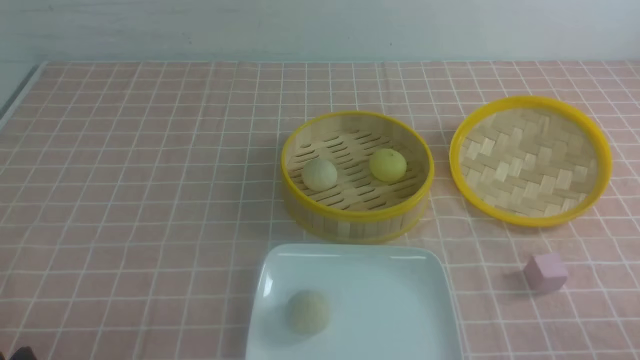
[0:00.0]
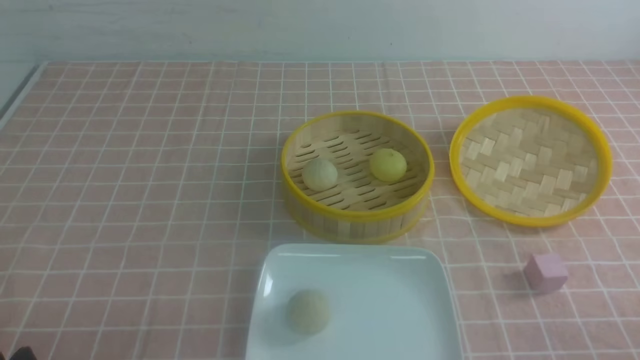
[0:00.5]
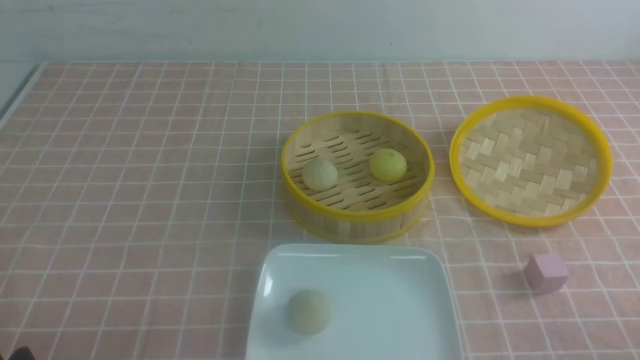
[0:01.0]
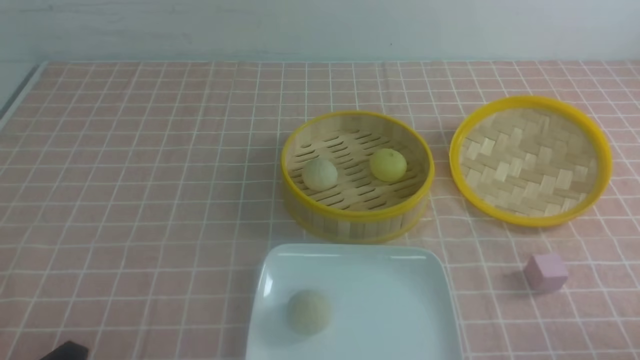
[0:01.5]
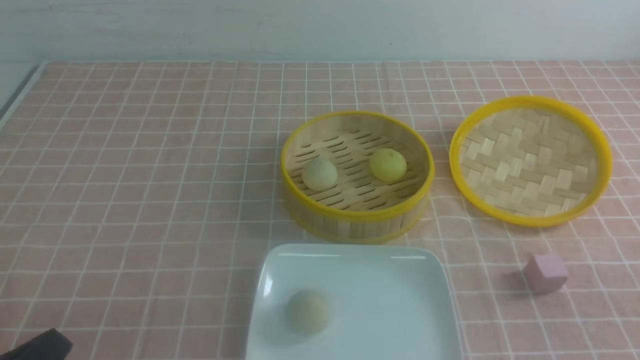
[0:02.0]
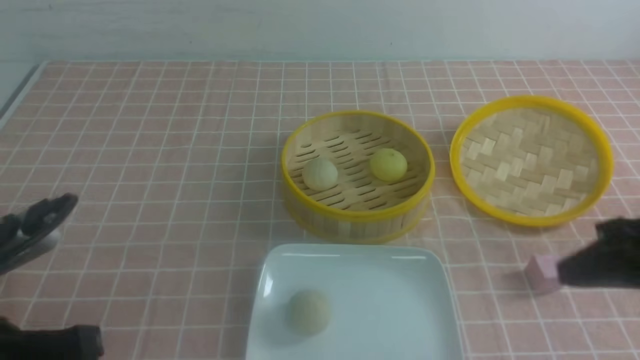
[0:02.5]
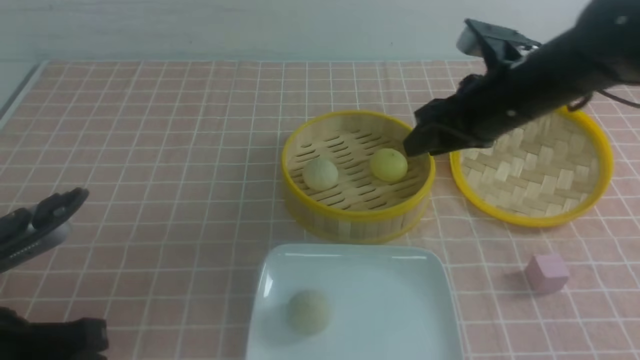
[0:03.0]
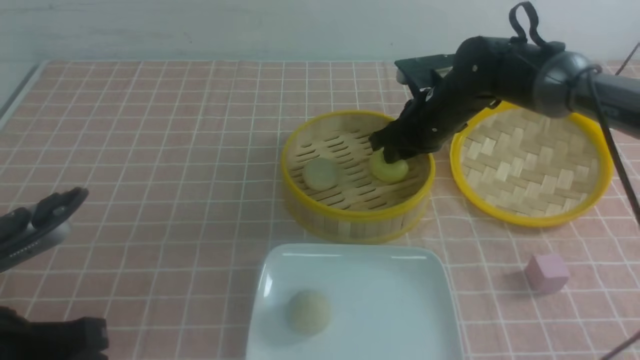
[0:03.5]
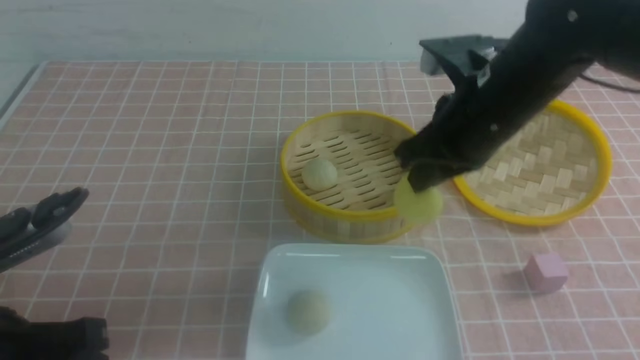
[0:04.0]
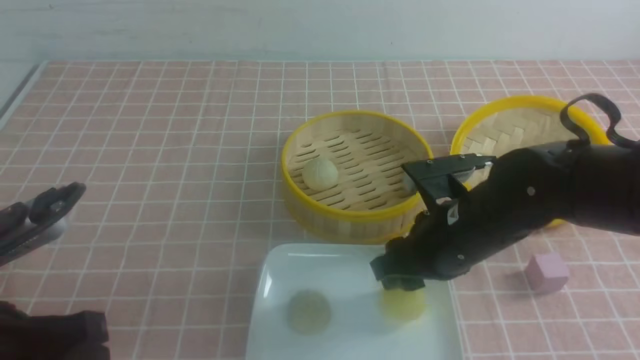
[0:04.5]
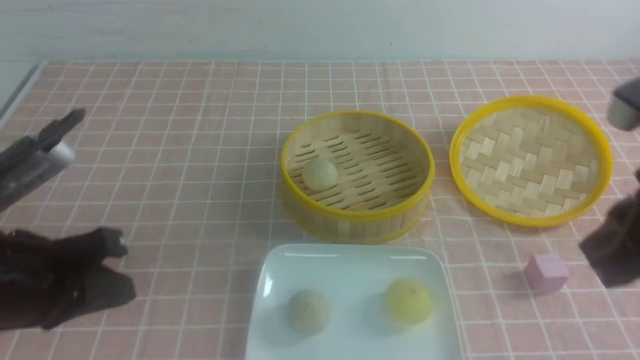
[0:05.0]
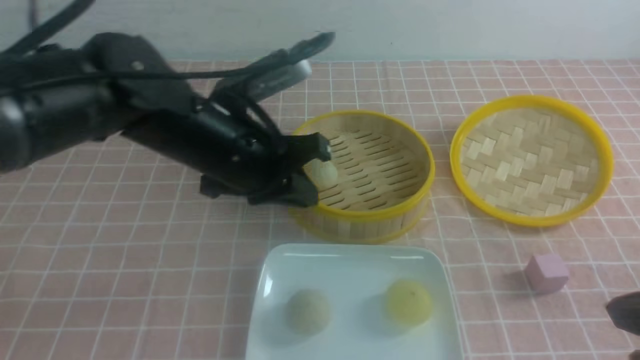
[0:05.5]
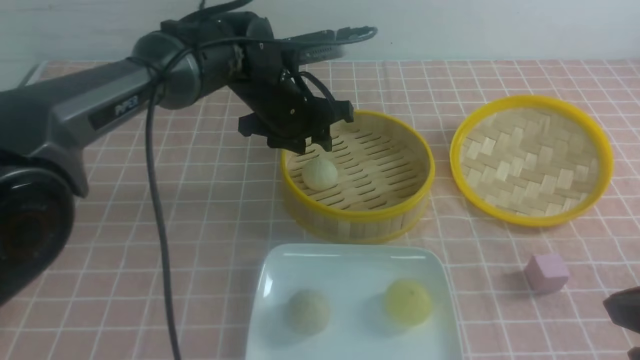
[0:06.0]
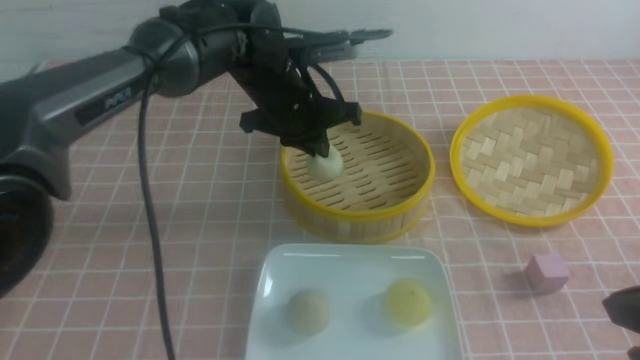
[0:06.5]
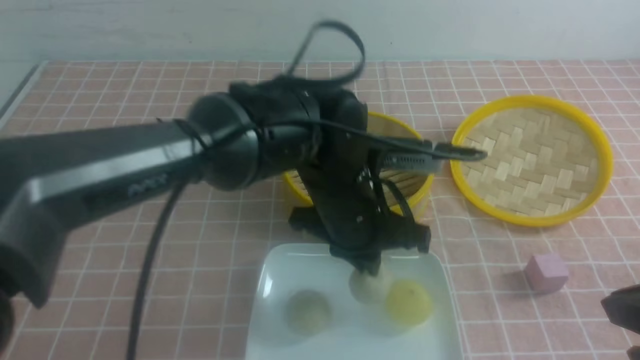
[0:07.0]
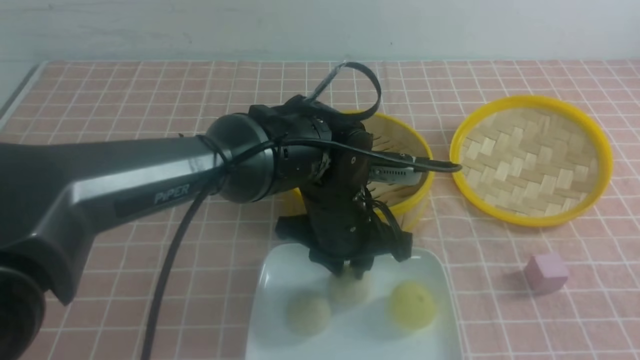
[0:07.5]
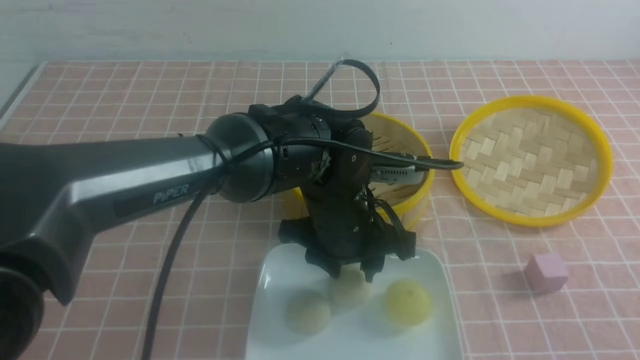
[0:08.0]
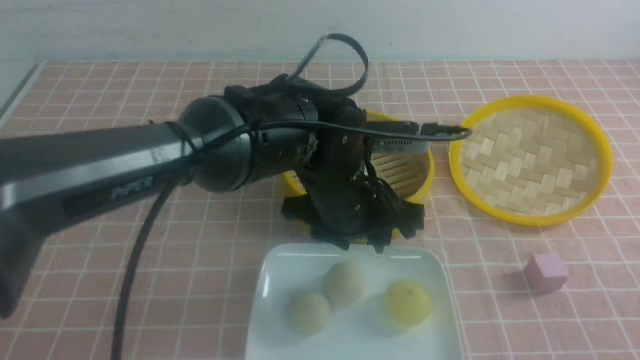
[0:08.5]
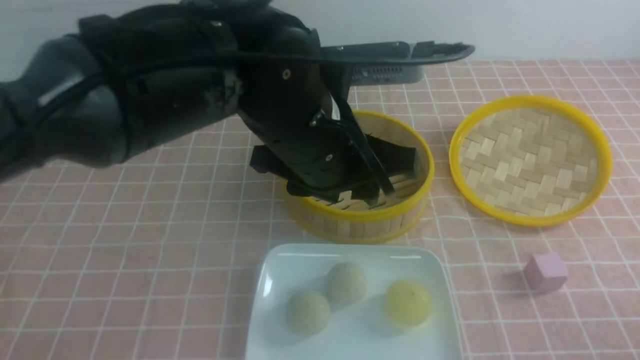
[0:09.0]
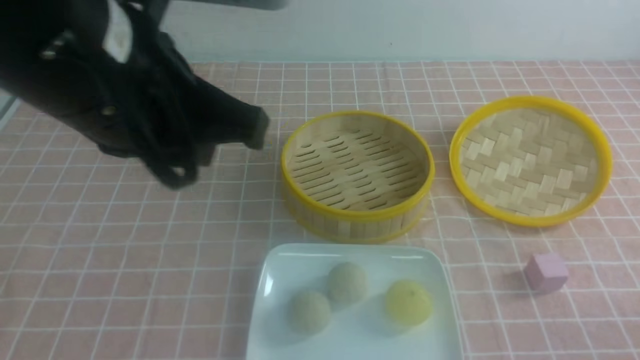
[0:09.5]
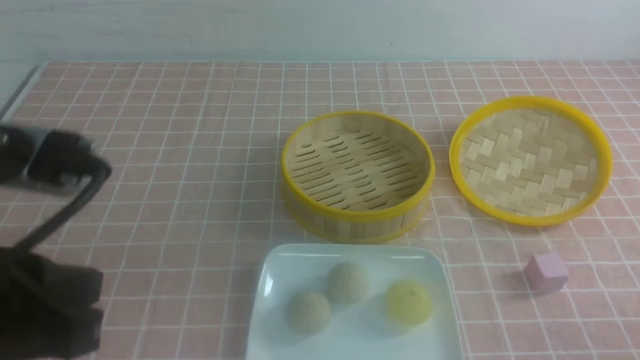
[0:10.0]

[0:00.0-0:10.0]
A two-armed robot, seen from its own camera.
Step, 0:00.0 to 0:03.5: use the right arm to grab the steamed stuffed bun that is closest to it.
Step, 0:04.0 to 0:04.5: use the right arm to put the steamed stuffed bun into the plate.
Step, 0:05.0 to 0:06.0: use the left arm to grab the steamed stuffed bun that is closest to it.
Step, 0:06.5 to 0:07.5: use the left arm to put the steamed stuffed bun into the plate.
0:02.0 to 0:04.0: The right gripper is displaced forward and to the left by about 30 cm, and opens, then closes again; the left gripper heads forward, covering some 5 cm.
0:04.0 to 0:06.0: The left gripper goes approximately 35 cm forward and to the right, and opens up; the right gripper goes about 25 cm backward and to the right, and opens and closes again.
0:06.0 to 0:08.0: The two grippers go about 15 cm backward and to the right. The left gripper closes, then opens again.
0:08.0 to 0:10.0: The left gripper shifts some 30 cm to the left, backward and upward, and closes its fingers. Meanwhile the right gripper is displaced downward by roughly 10 cm.

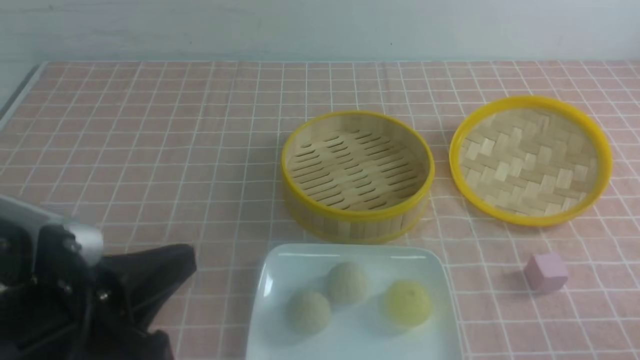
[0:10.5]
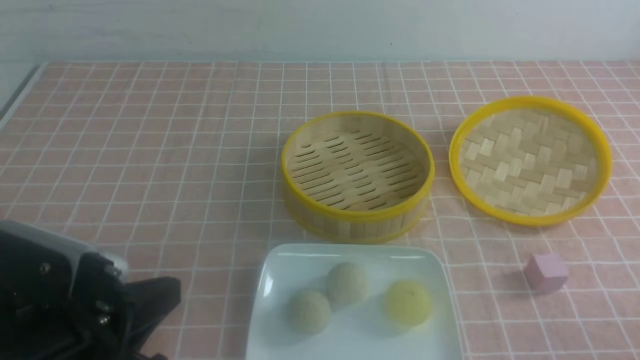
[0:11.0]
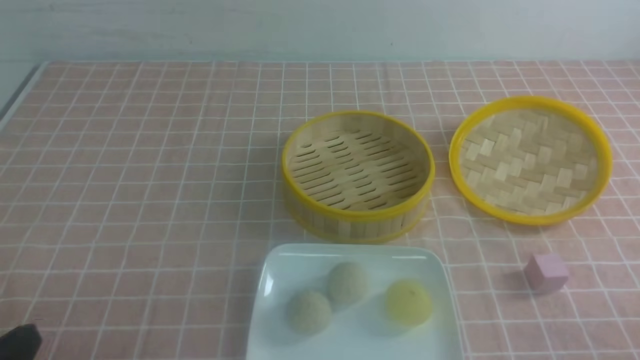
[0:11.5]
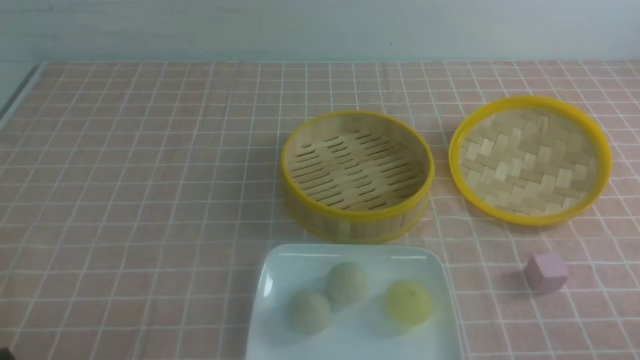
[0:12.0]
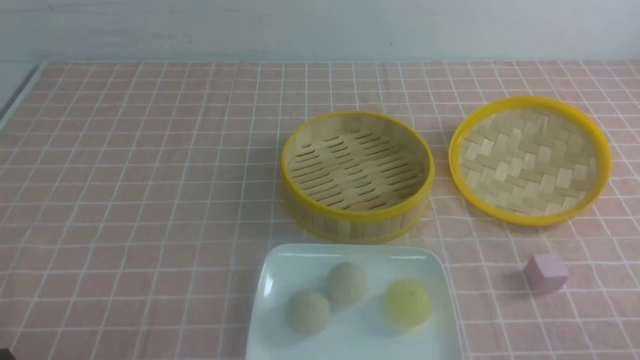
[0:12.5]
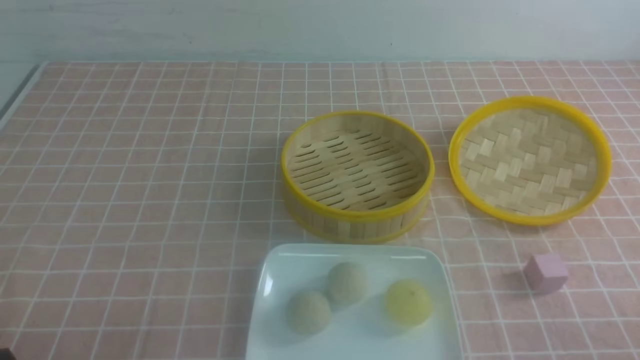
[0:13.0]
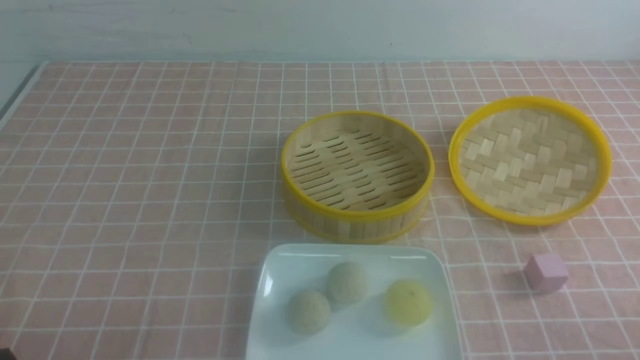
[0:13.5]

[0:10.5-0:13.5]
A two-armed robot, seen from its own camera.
0:10.5 to 0:12.0: The left gripper travels downward and to the left by approximately 15 cm.
0:12.0 to 0:13.5: Neither gripper changes place.
